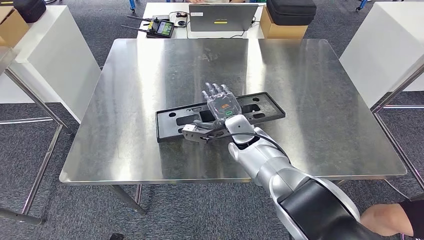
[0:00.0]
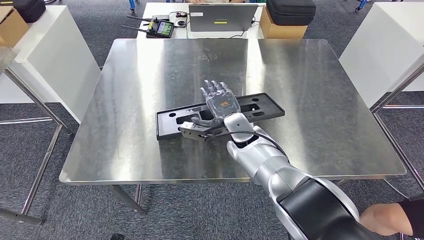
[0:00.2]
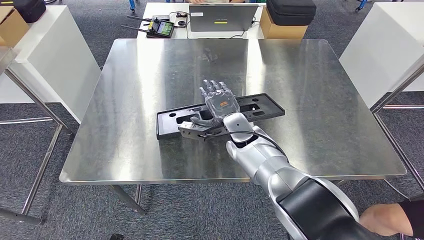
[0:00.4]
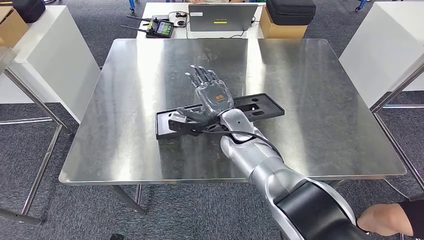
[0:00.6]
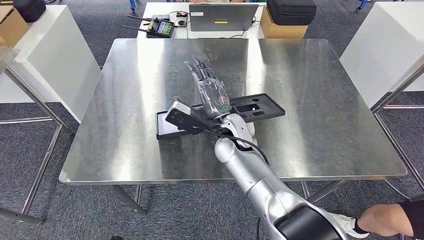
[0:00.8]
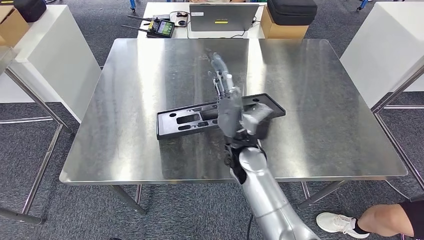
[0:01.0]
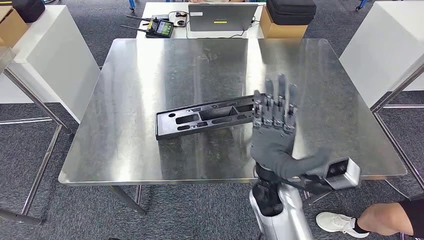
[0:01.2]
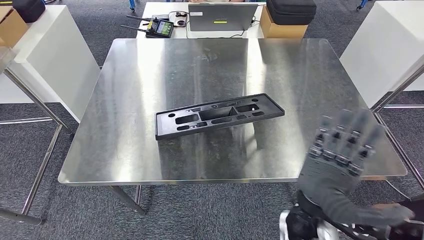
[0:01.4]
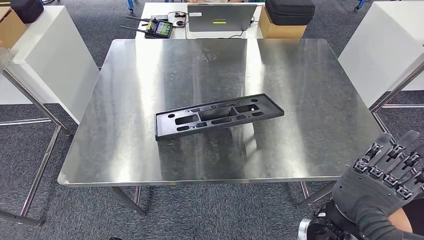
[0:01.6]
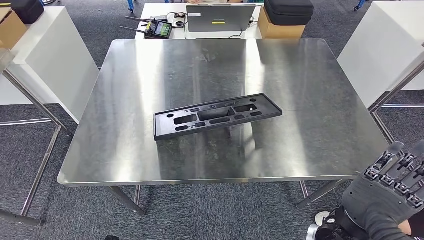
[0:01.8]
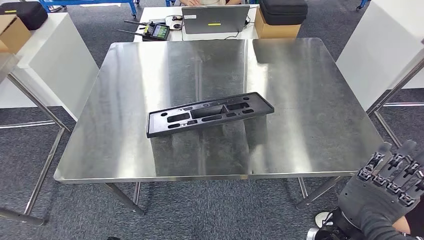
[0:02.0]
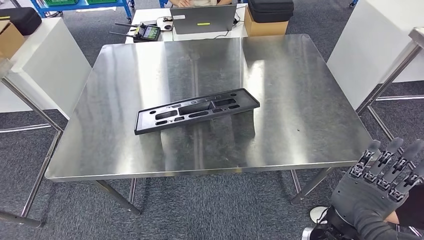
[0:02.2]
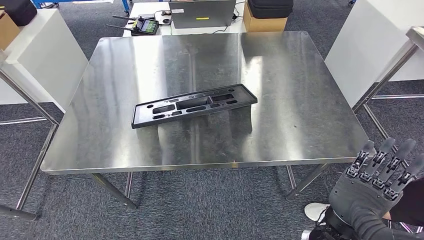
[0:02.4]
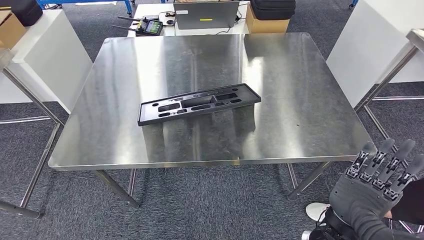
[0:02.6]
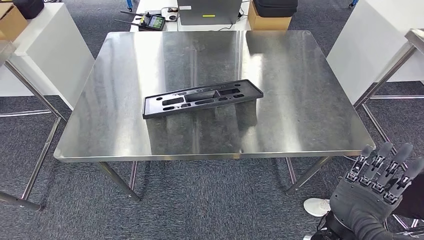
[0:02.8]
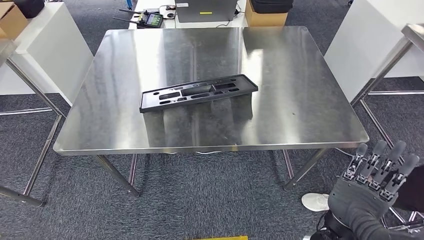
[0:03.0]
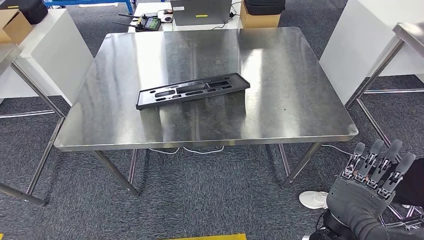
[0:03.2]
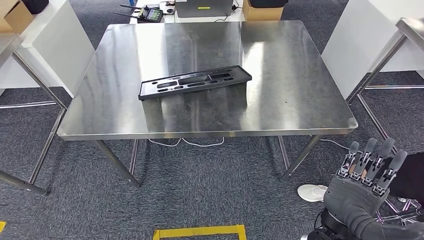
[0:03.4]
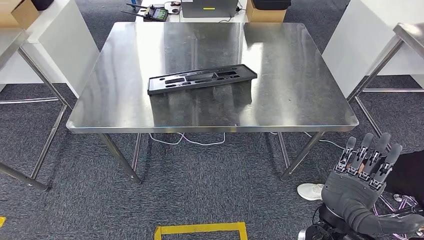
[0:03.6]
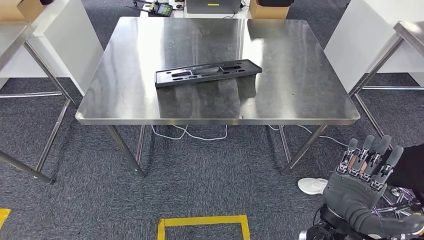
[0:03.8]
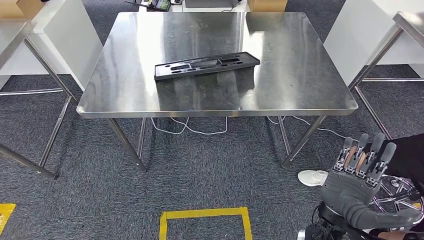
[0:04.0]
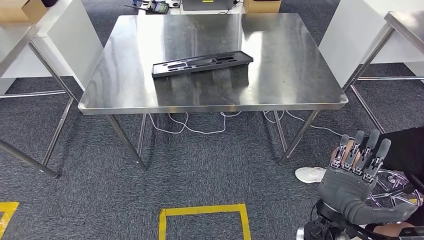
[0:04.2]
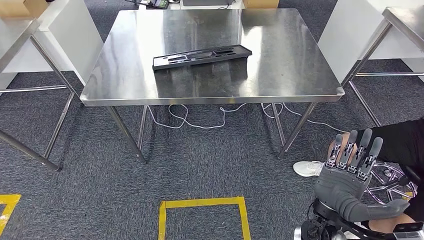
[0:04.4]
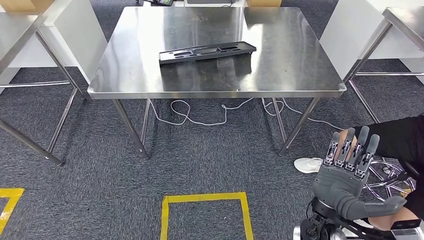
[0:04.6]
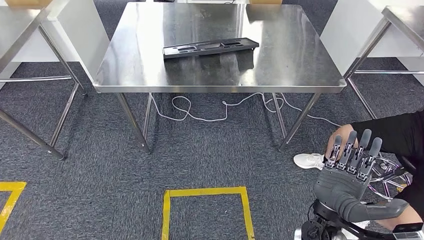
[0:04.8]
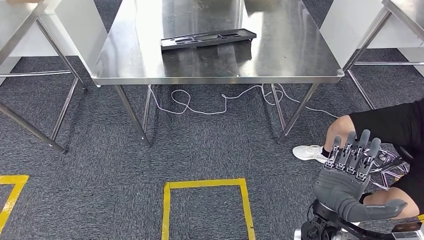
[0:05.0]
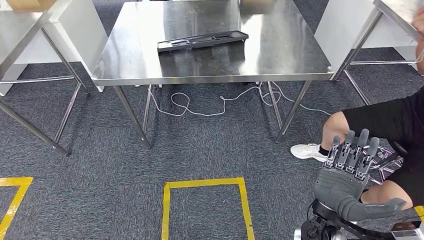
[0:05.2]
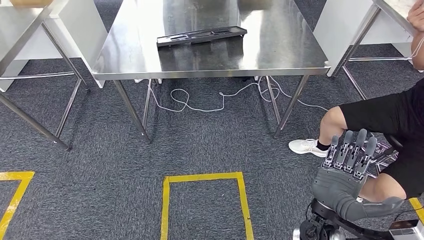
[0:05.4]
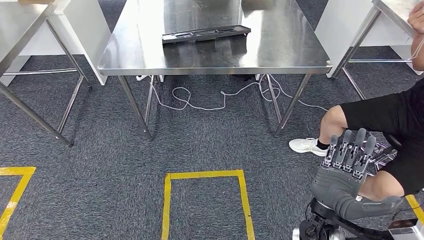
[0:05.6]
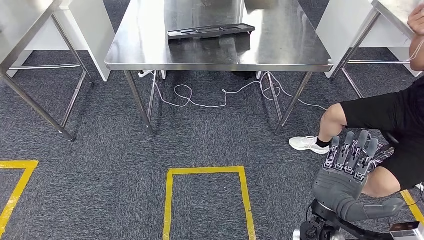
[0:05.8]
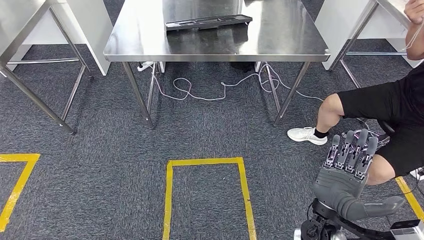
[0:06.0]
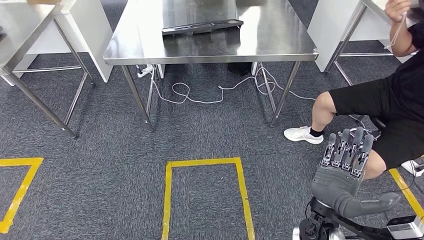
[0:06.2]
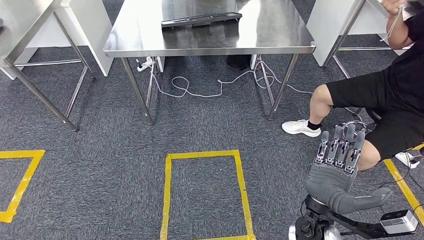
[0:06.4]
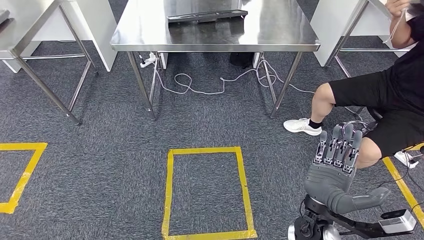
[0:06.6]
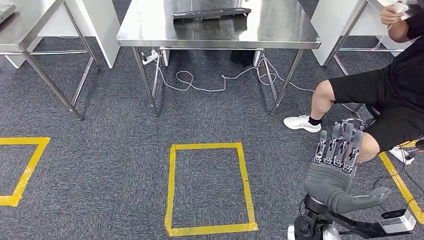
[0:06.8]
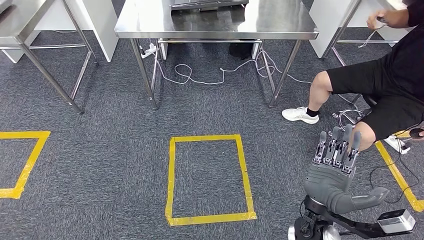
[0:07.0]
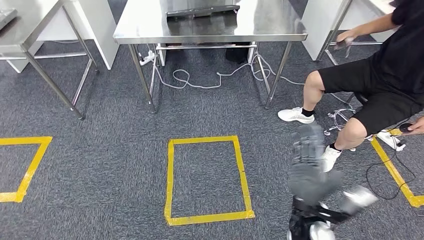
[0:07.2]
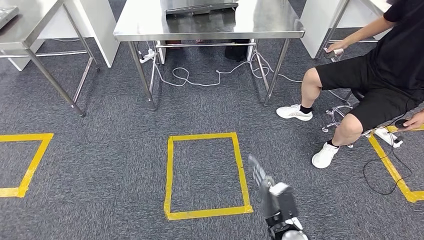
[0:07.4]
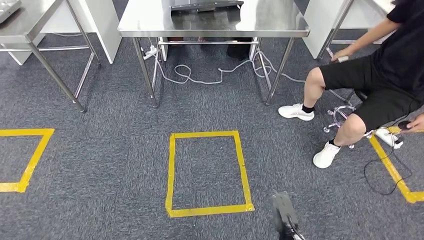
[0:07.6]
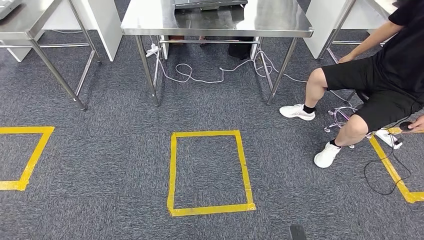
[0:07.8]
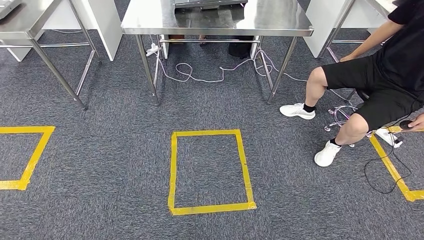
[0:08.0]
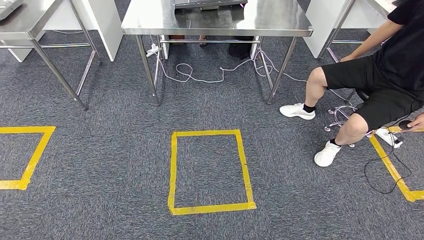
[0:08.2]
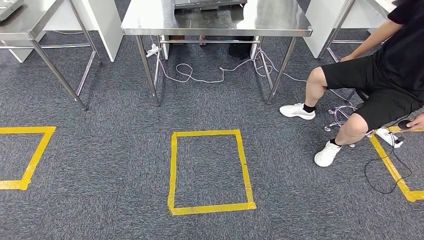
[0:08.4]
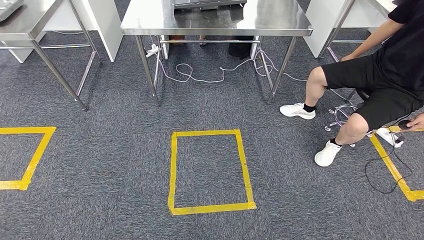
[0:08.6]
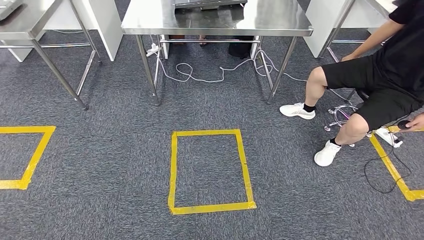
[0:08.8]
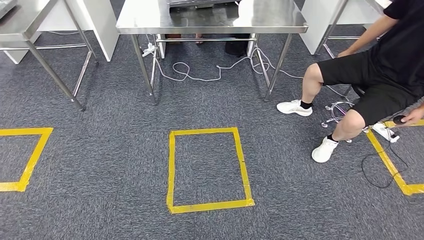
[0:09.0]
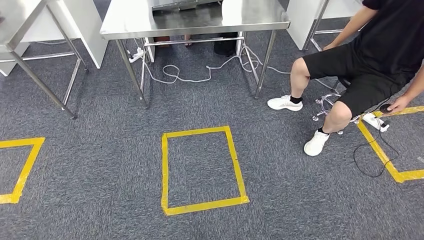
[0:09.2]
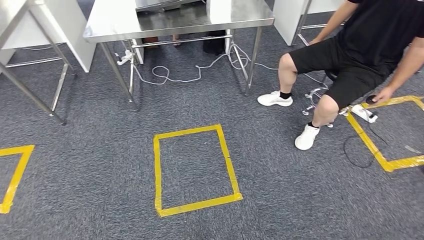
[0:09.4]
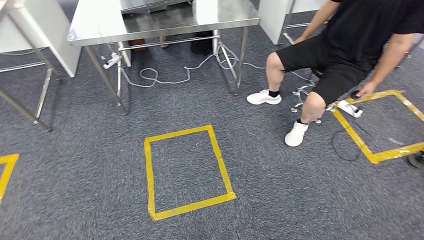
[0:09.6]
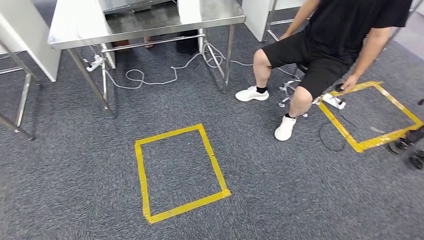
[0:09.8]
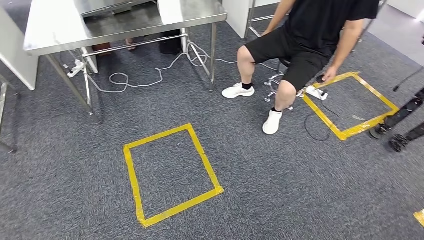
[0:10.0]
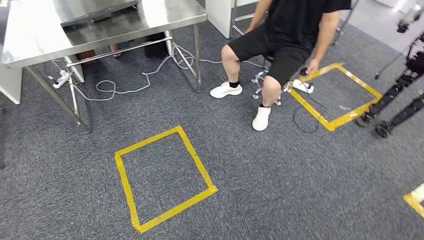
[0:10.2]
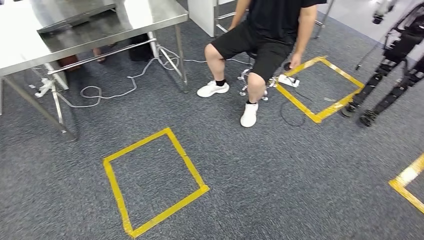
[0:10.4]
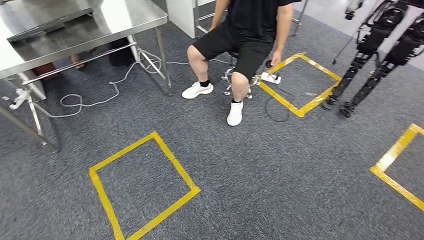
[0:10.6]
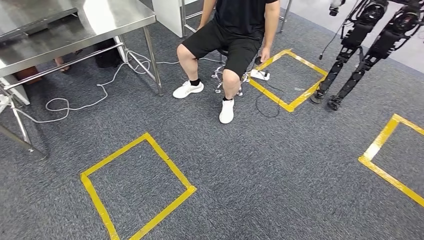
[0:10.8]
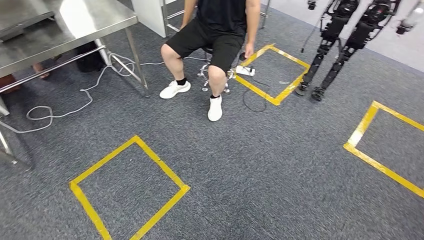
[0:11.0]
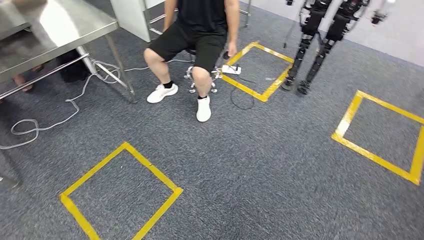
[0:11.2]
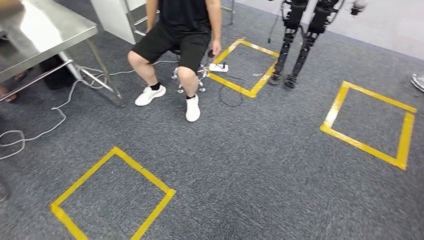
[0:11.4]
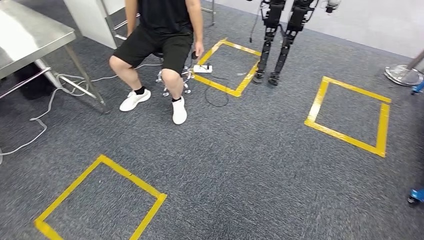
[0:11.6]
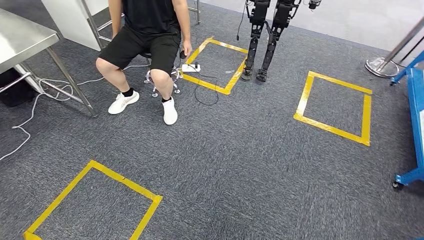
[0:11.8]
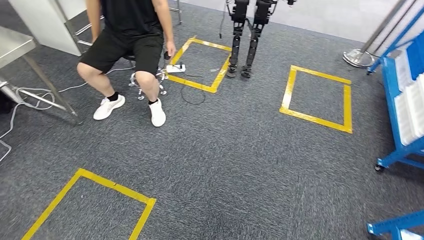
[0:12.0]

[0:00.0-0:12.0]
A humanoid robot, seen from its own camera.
Step, 0:00.0 to 0:06.0: Insert the large material into the corresponding hole on the workbench.
0:00.0 to 0:01.6: The right hand travels backward and to the right by about 25 cm.
0:07.6 to 0:09.0: The right hand goes roughly 15 cm backward and downward.

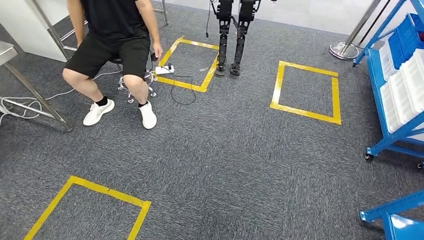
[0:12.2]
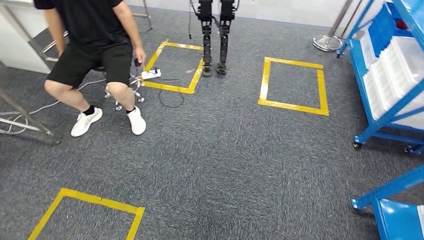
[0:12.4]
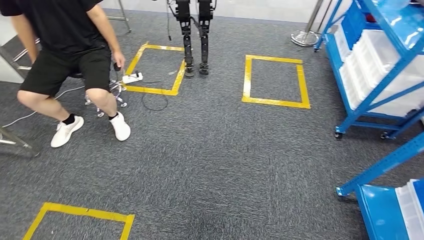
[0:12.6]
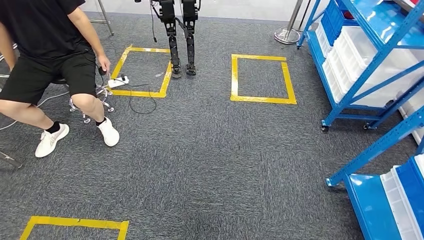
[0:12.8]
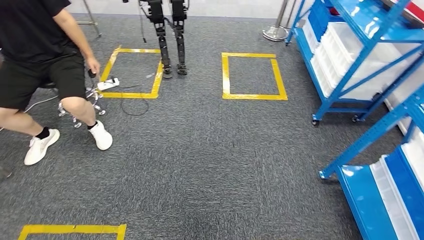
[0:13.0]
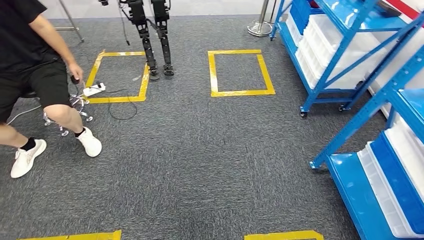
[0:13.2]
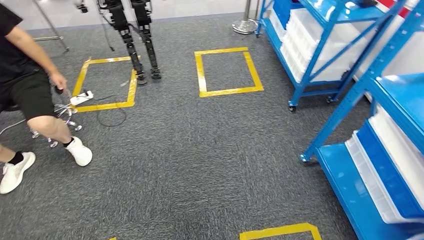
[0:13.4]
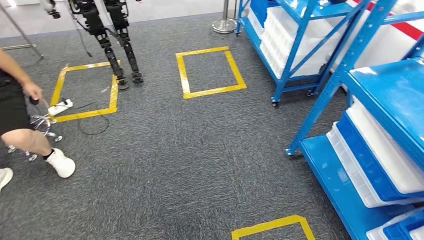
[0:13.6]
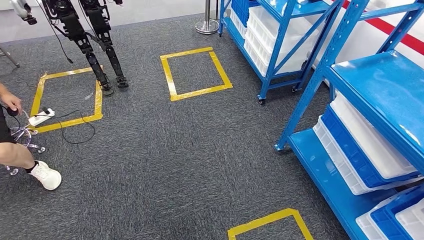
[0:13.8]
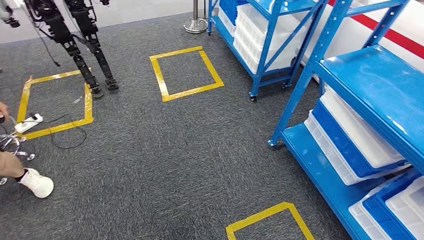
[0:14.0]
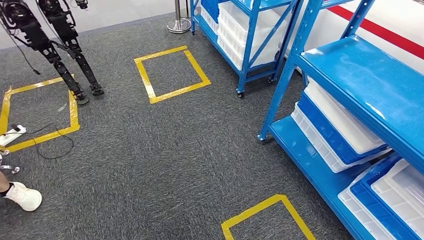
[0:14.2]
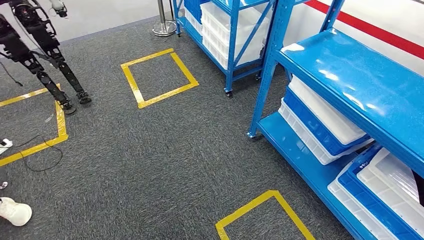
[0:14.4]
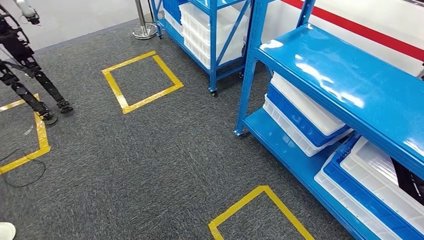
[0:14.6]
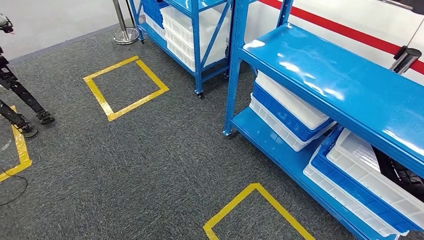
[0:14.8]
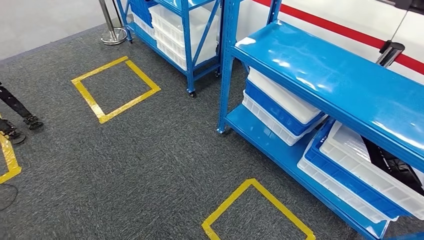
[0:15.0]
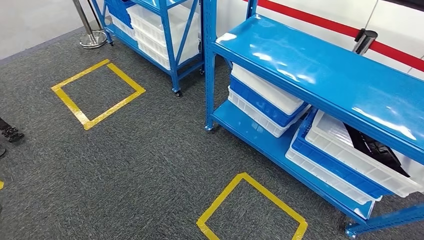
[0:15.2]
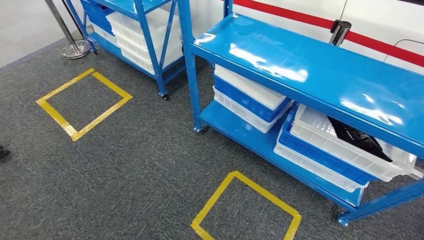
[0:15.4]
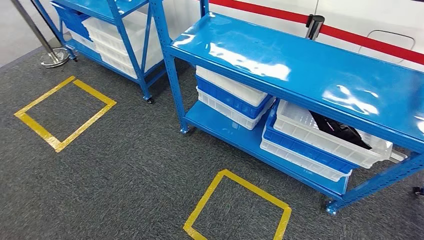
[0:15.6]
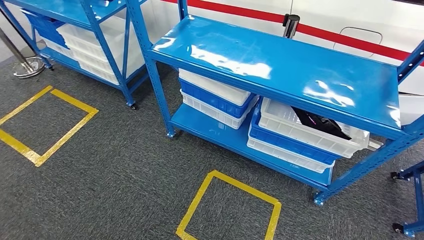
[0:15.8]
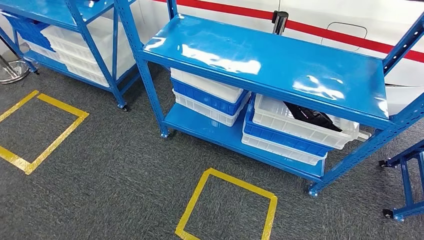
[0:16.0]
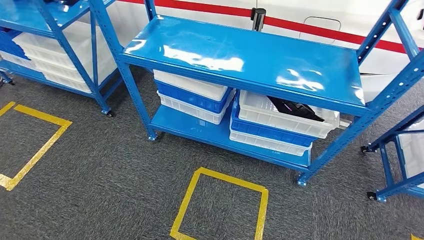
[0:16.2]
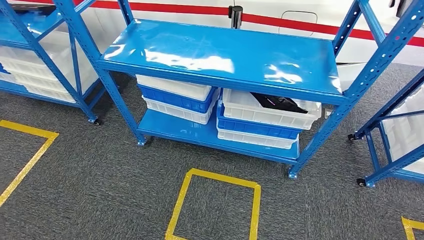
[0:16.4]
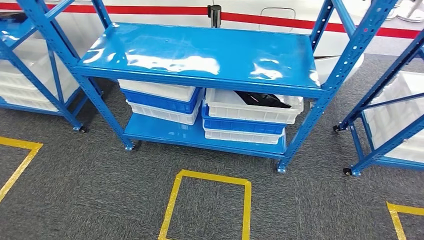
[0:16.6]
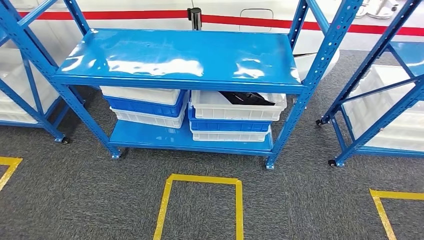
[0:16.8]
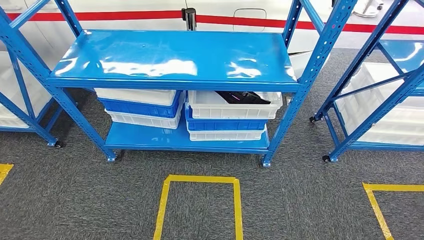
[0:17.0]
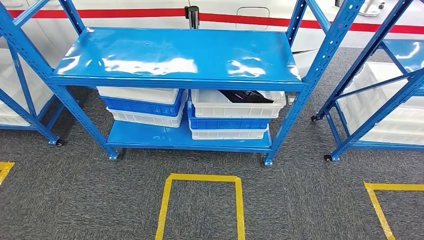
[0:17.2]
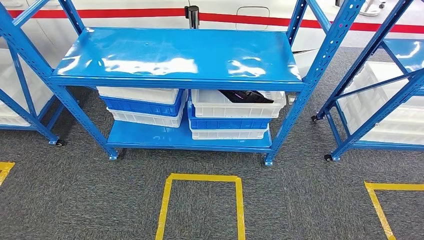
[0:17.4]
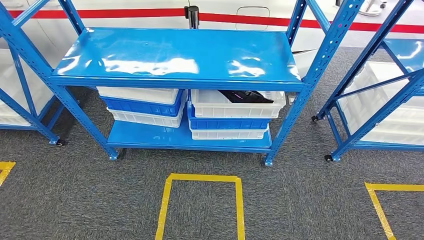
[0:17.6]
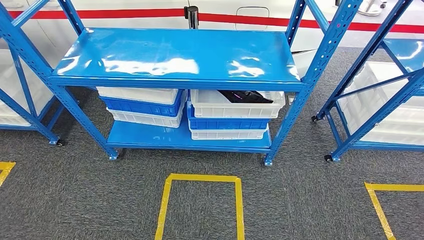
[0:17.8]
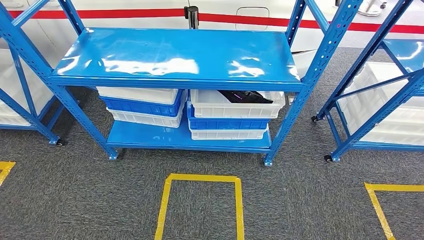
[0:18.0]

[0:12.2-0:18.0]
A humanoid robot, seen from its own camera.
Step, 0:12.2 to 0:18.0: Move to the initial position of the shelf.
